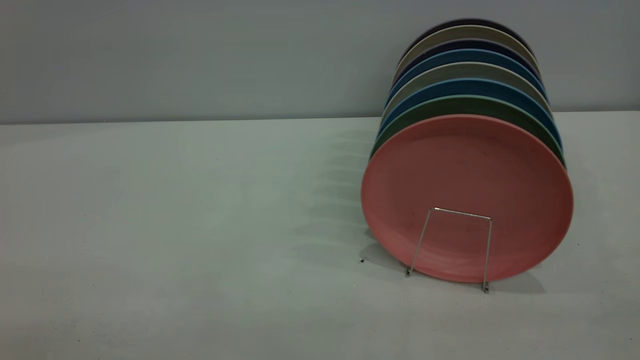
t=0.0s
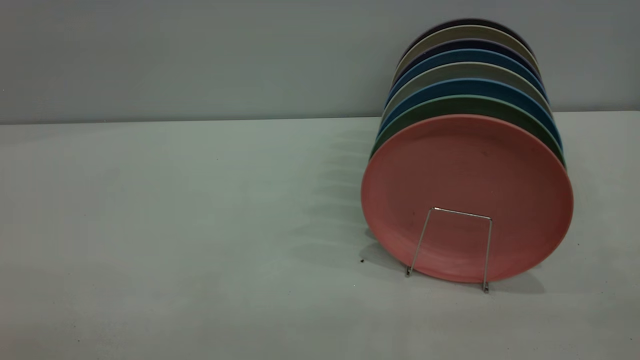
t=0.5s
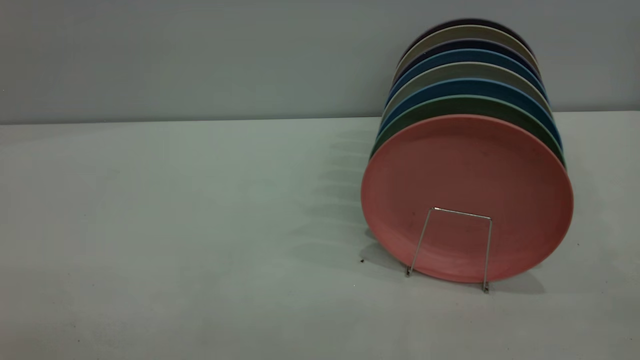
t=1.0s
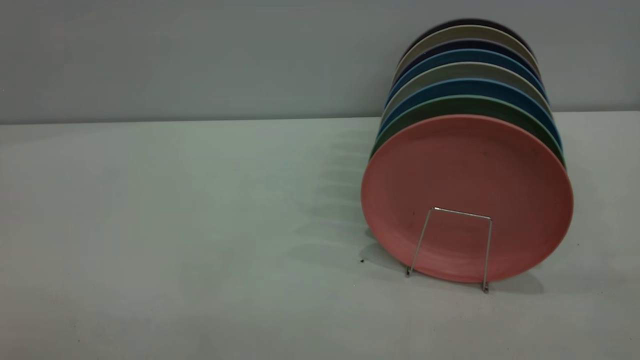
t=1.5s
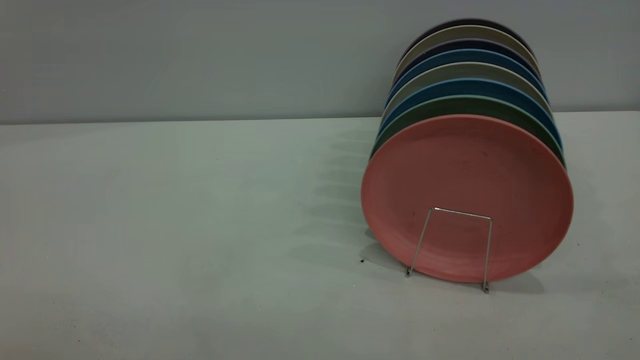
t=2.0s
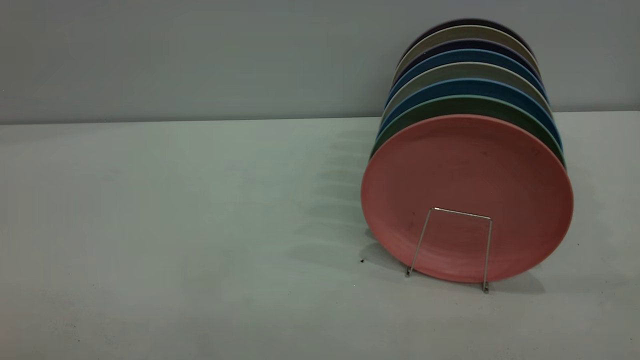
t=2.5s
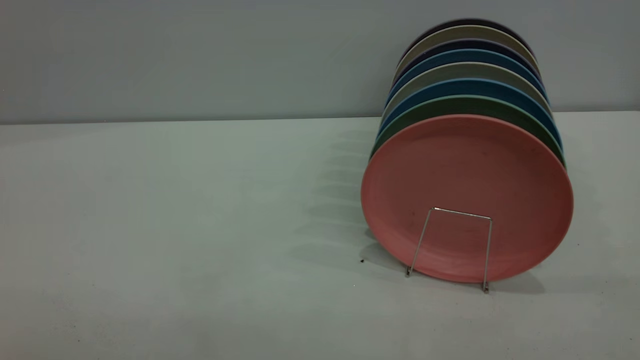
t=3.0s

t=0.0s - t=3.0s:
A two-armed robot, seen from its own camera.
Task of the whole recording: put the plate on the plate rack.
t=1.5s - t=3.0s: Neither gripper changes place.

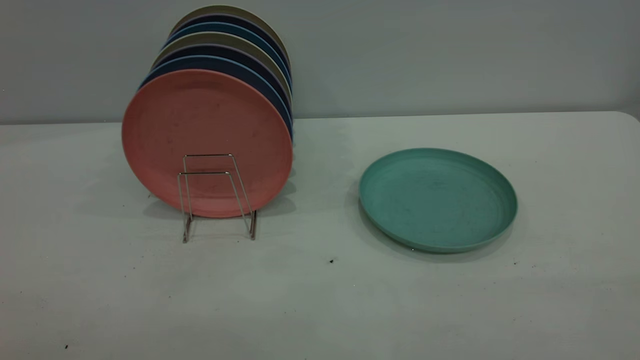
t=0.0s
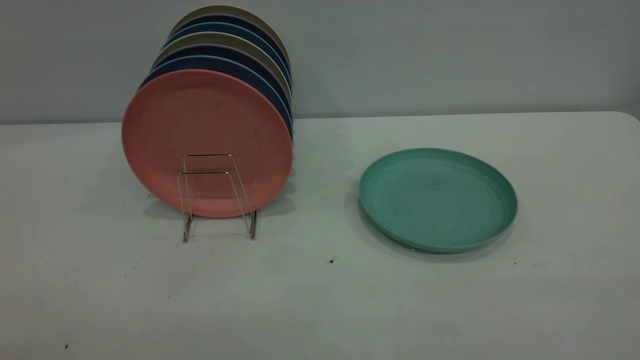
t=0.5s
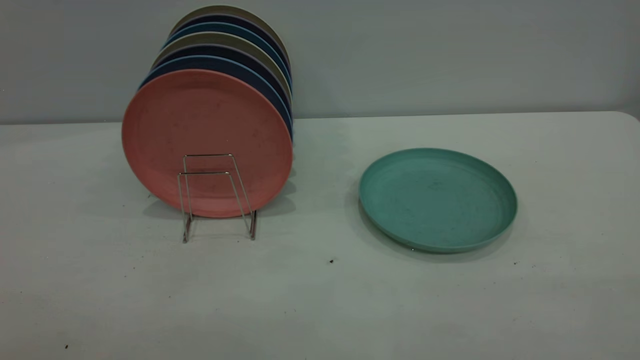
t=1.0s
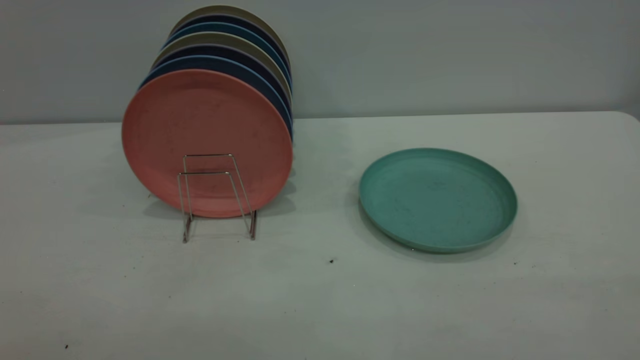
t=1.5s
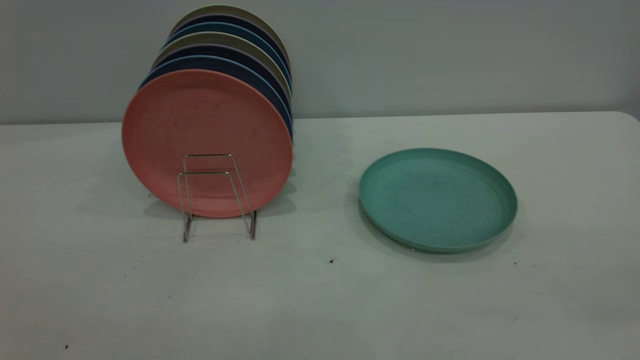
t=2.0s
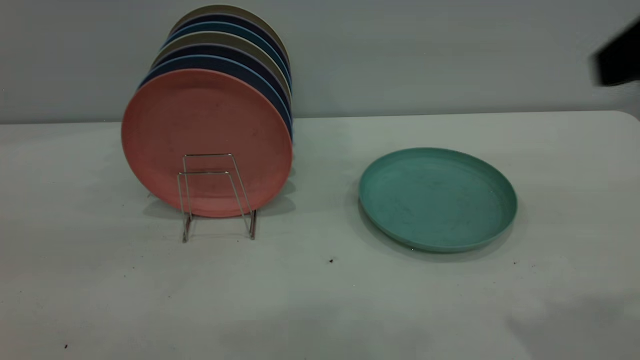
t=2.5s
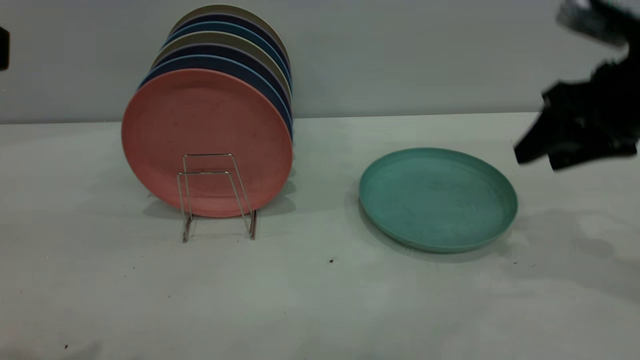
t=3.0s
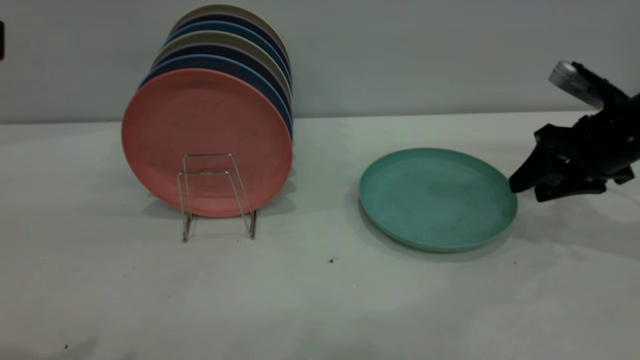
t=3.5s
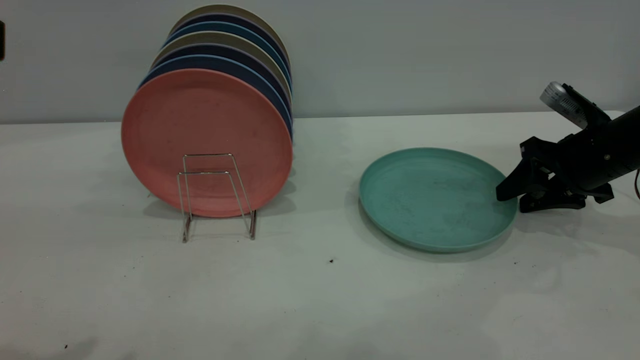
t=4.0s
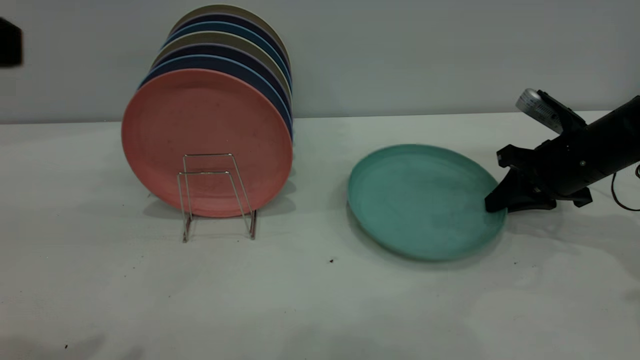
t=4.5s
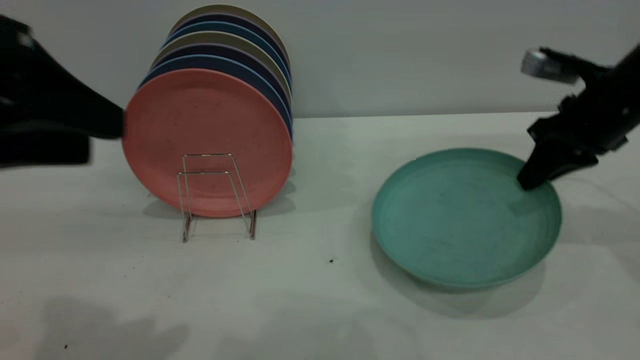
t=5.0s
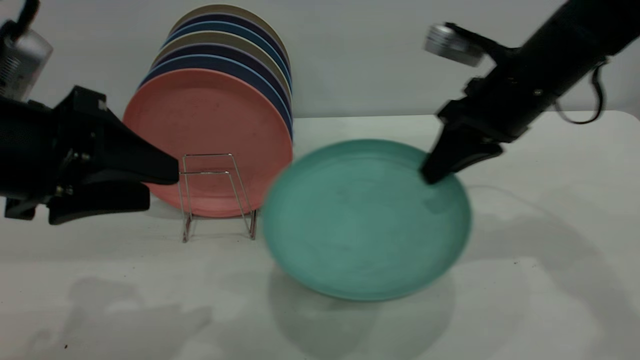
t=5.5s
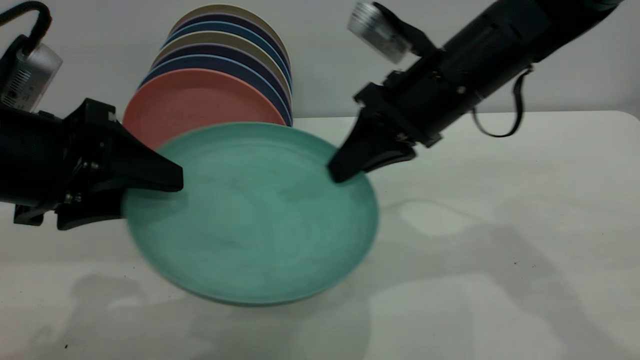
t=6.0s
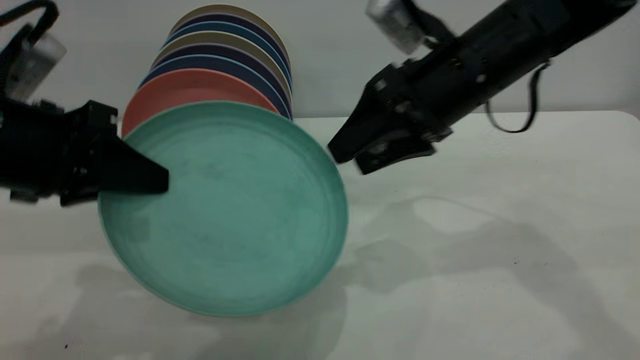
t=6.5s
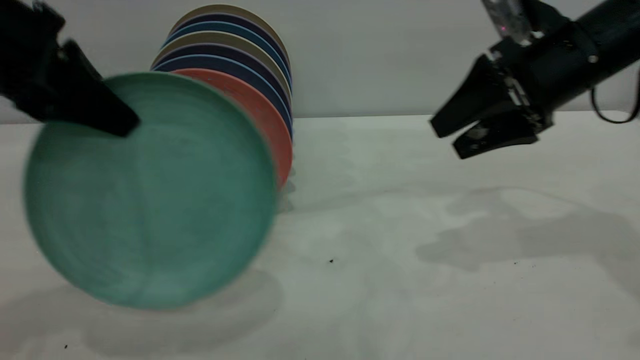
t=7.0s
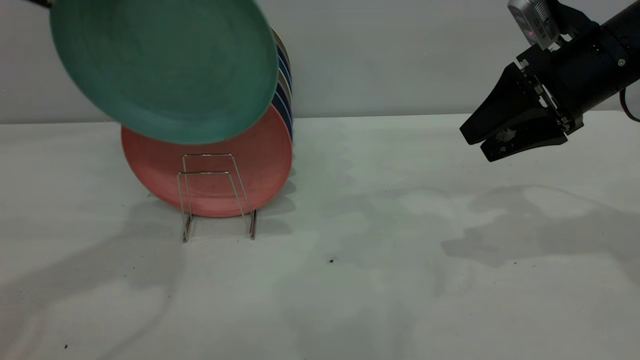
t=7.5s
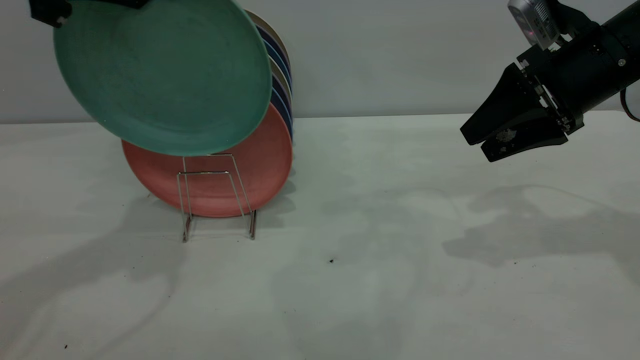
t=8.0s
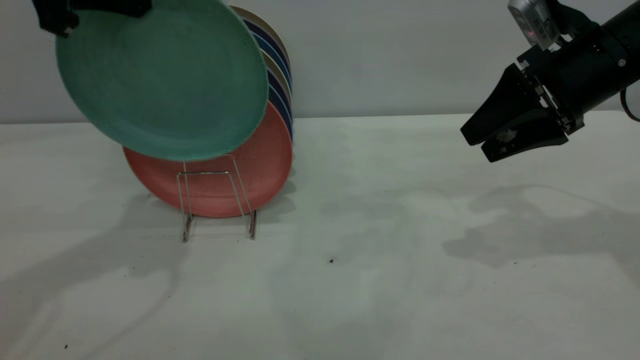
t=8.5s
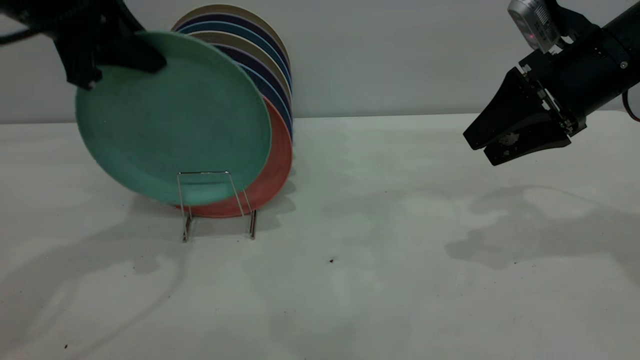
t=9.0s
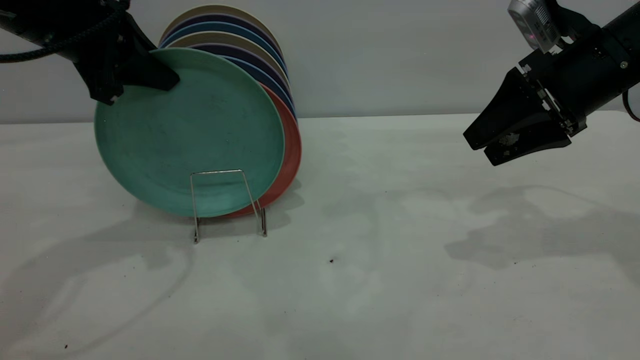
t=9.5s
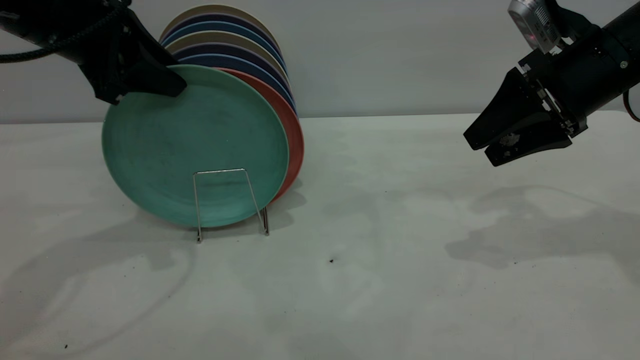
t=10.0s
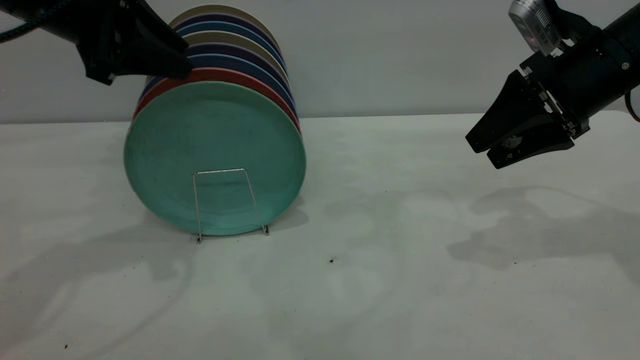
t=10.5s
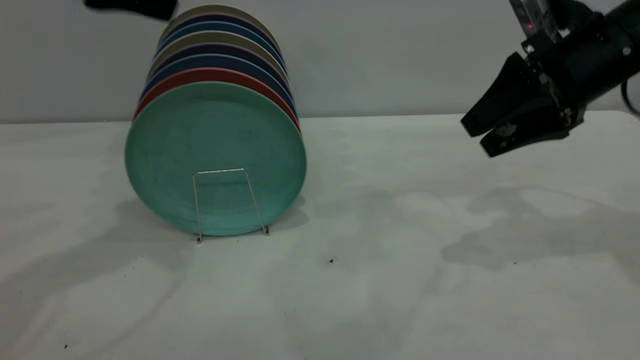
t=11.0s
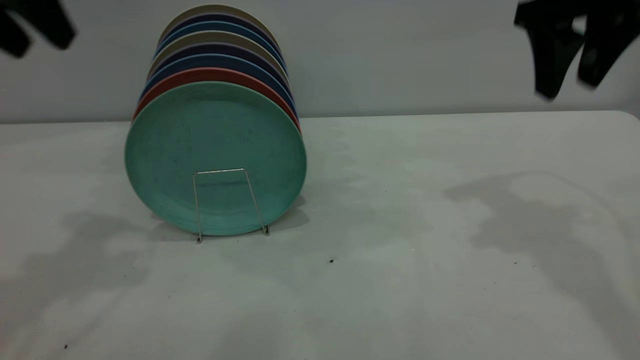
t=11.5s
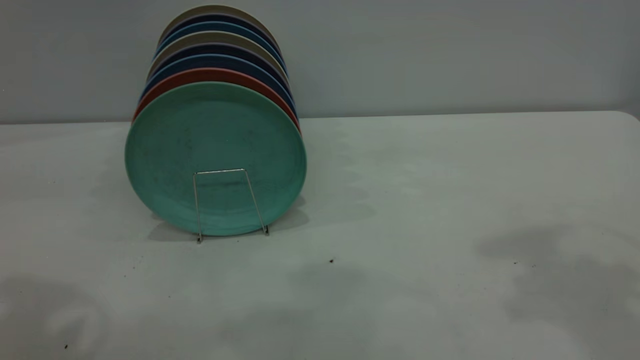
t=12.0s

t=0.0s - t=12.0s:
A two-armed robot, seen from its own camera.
Task of the whole recording: the right gripper grasp the green plate, the right gripper pass the green plate to the left gripper, and the left gripper place the green plate on the plate rack.
Step, t=0.0s - t=5.0s: Pick up the plate with the right gripper.
Step, t=5.5s - t=6.5s: Pass the plate from the right gripper to the left gripper.
Step, t=7.0s - t=10.5s: Place the plate on the shelf.
t=2.0s - t=4.0s: The right gripper moves forward and downward, approximately 50 cm.
t=4.0s - t=6.0s: The right gripper moves to the left and upward, approximately 25 cm, and closes its fingers. The left gripper goes some 15 cm downward and forward.
t=6.0s - t=8.0s: The left gripper heads upward and forward, covering approximately 20 cm, and closes up, while the right gripper heads to the right, covering approximately 15 cm, and opens its fingers.
t=8.0s - t=10.0s: The left gripper moves downward, about 10 cm, and opens up.
t=10.0s - t=12.0s: The right gripper goes approximately 25 cm upward and backward. The left gripper travels backward and upward by approximately 20 cm, and opens.
